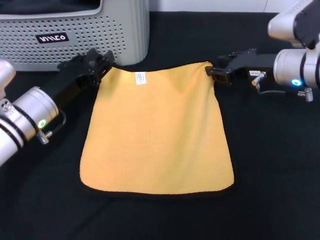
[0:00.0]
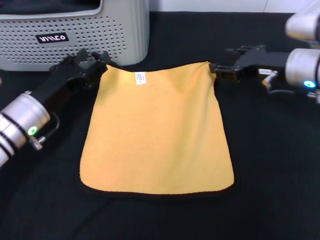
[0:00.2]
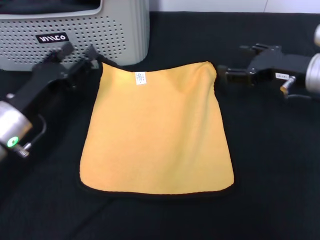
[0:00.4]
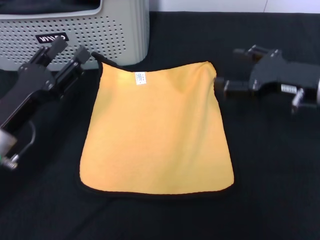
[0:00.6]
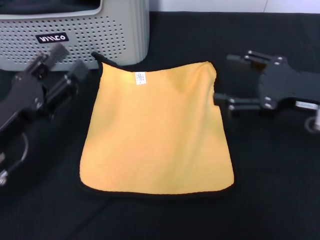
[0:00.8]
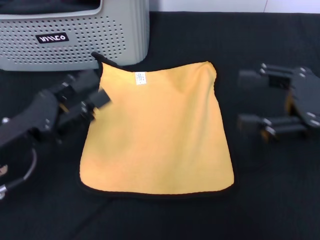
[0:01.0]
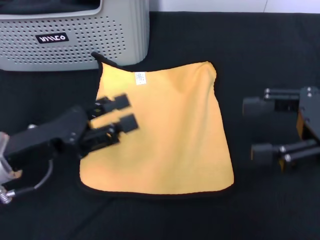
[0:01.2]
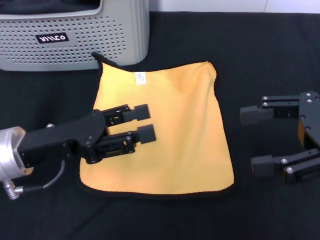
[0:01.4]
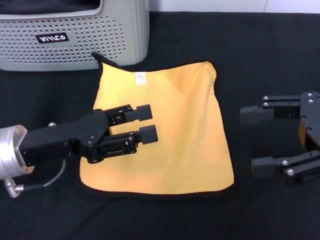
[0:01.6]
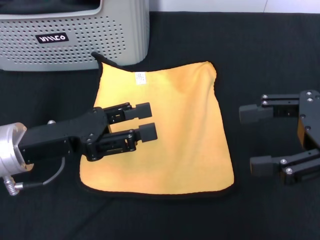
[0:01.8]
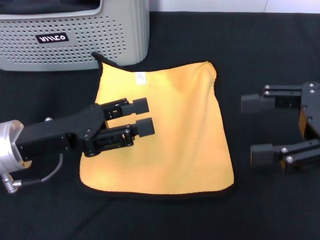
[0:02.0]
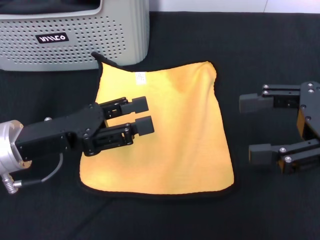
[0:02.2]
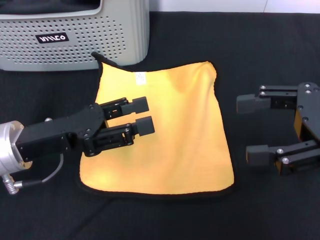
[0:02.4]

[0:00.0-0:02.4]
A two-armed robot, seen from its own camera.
Task of the whole recording: pick up the towel from the storage box and lay it flat on the black tablecloth.
0:00.0 to 0:01.2: The right gripper shifts about 20 cm backward, upward and to the right, and opens up, while the left gripper travels backward and upward by roughly 10 cm, and opens up.
0:01.2 to 0:02.4: The grippers make only small movements.

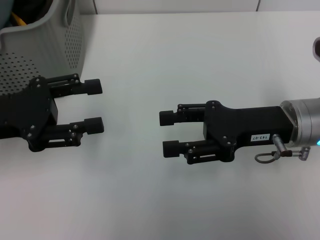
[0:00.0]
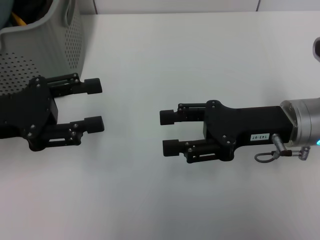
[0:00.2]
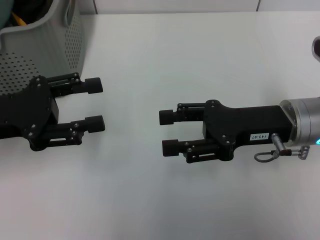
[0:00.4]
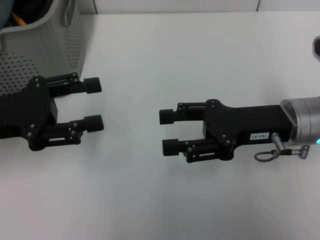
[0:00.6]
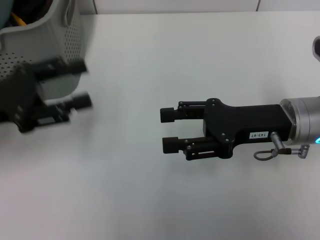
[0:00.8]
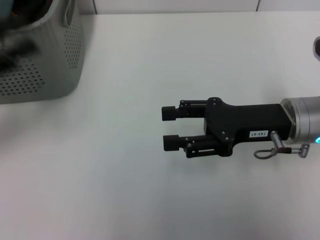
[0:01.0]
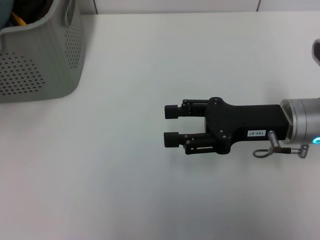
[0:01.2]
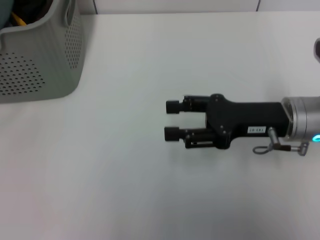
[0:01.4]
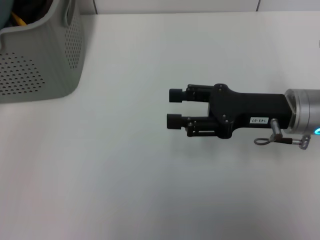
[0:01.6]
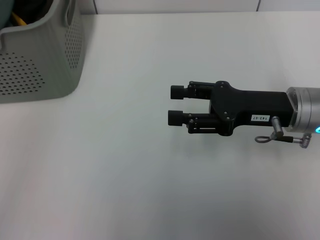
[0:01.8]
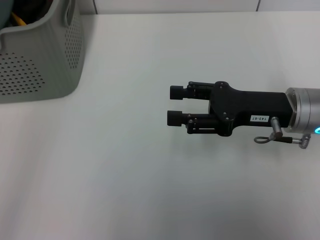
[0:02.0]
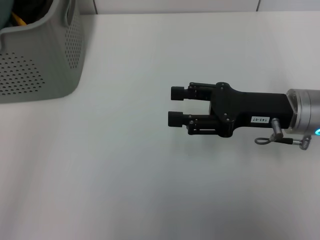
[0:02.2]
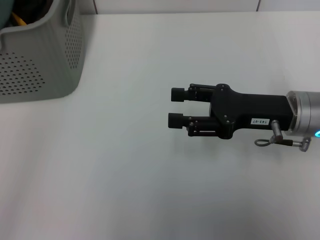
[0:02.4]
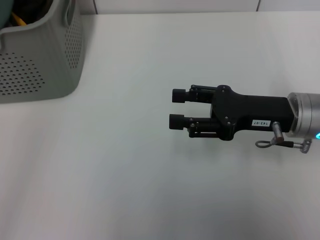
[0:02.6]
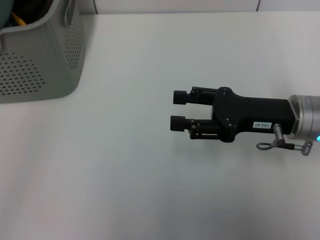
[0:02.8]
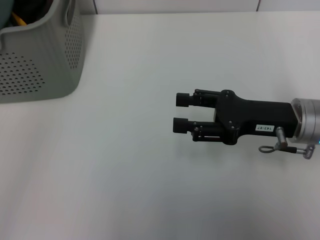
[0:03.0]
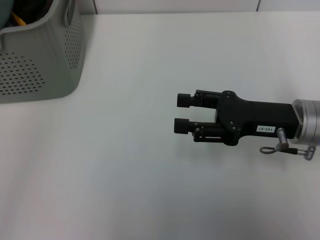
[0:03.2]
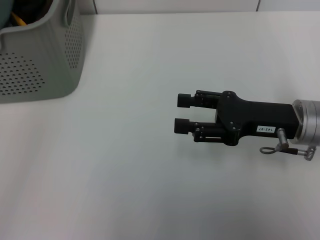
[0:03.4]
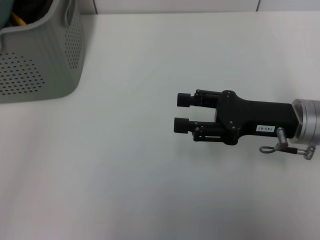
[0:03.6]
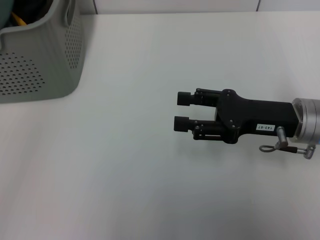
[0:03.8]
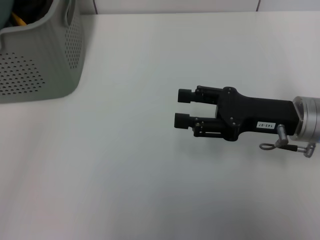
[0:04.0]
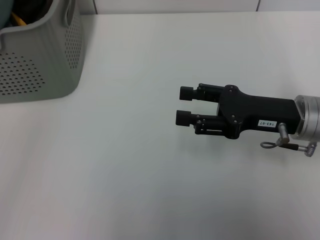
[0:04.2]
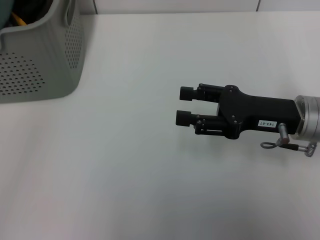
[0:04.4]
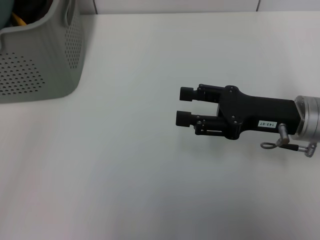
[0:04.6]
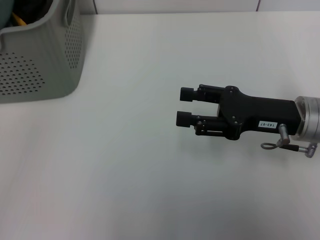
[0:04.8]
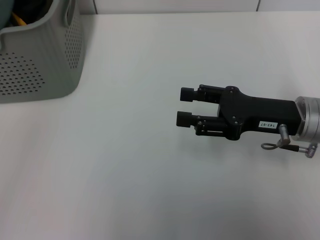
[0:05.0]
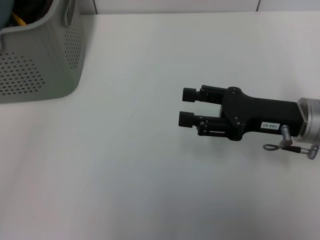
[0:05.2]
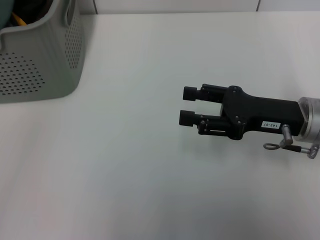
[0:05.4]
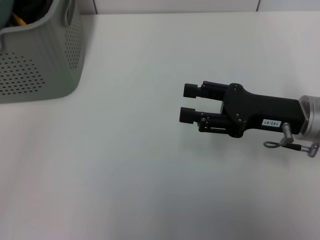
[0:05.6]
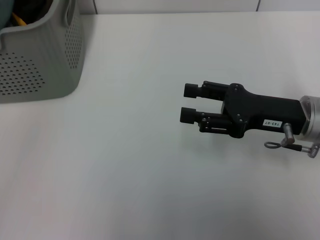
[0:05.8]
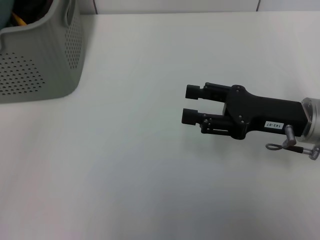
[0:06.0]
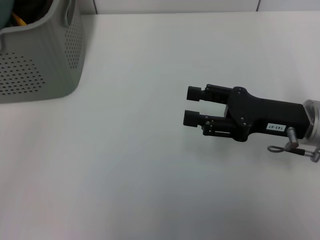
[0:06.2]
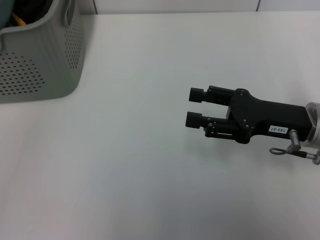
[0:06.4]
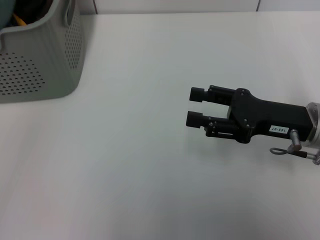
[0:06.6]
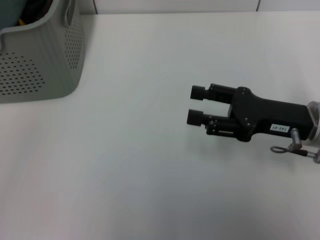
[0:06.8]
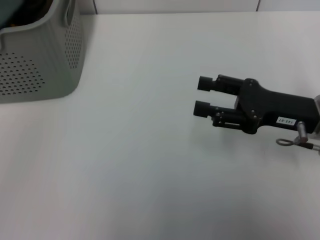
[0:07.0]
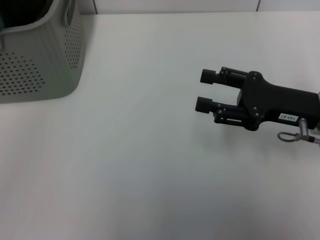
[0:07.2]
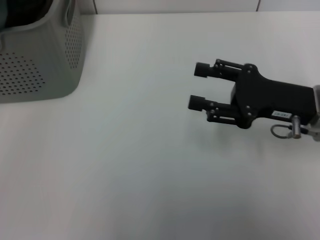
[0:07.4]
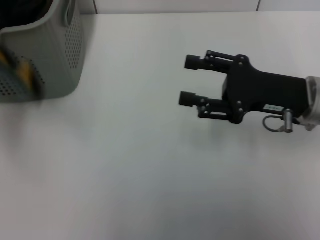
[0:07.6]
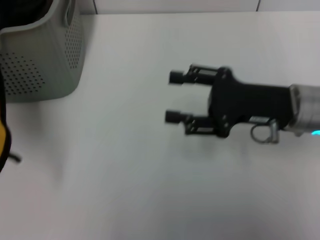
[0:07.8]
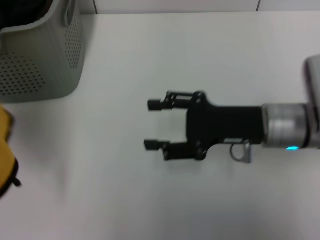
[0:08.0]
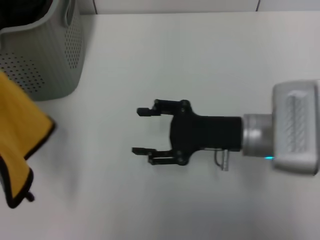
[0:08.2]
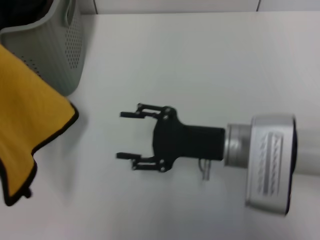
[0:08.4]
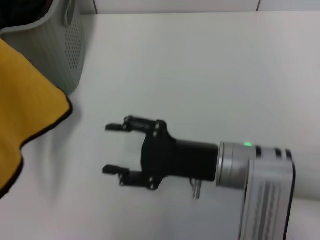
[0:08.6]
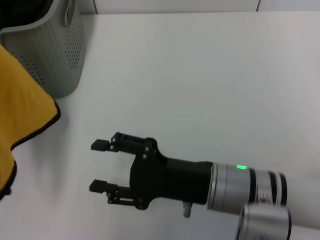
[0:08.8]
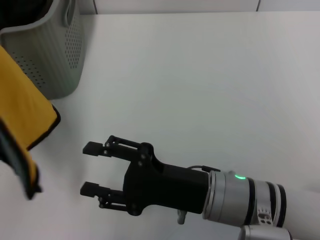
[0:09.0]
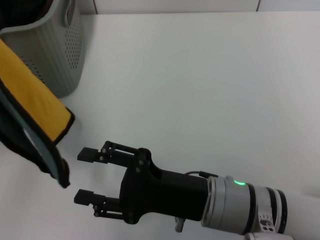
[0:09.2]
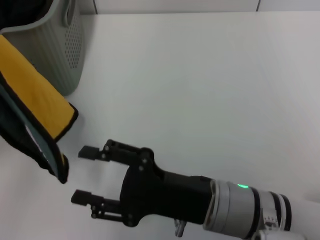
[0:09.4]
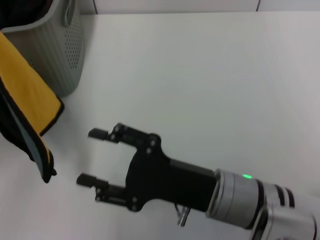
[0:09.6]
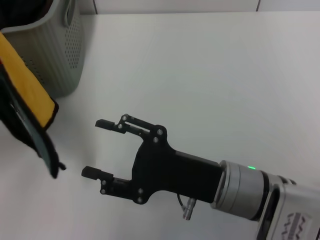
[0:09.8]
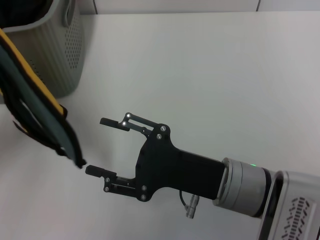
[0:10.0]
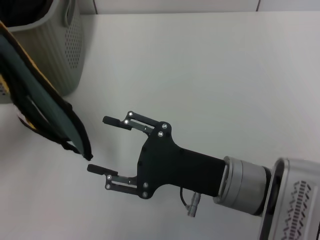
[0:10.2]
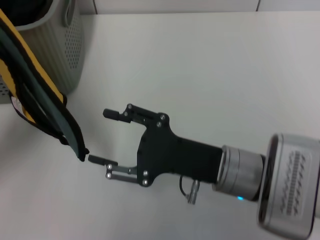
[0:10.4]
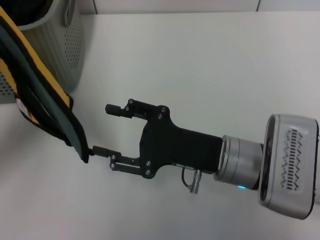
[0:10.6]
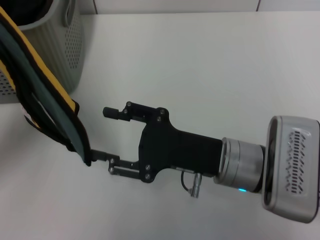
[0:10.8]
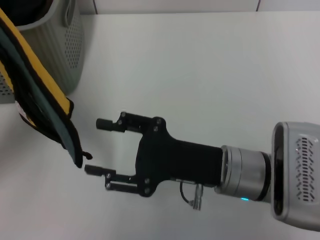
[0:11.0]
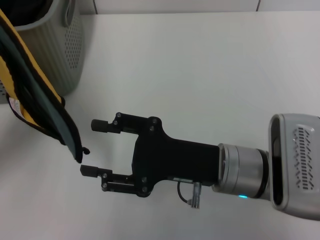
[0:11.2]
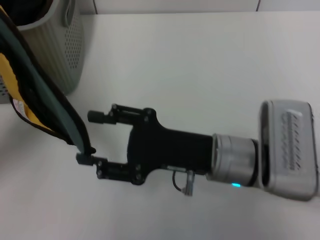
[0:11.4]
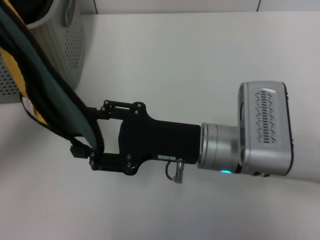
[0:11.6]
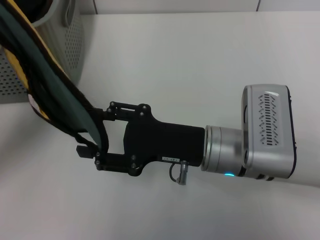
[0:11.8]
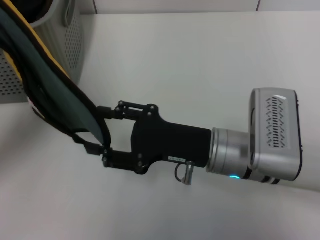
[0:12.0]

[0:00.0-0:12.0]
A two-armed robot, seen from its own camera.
Task of the whole recording: pick up the towel from the storage box and lay it flat on the table.
Step, 0:00.0 to 0:06.4: Pick up a towel with the left gripper.
0:00.0 to 0:01.6: The left gripper moves to the left and backward, roughly 15 cm.
0:03.0 to 0:04.4: There are only small adjustments of the grippers.
0:04.4 to 0:06.0: The left gripper closes up.
0:06.0 to 0:07.6: The left gripper goes about 5 cm upward, and closes its fingers.
0:07.6 to 0:09.0: The right gripper shifts approximately 15 cm to the left, backward and downward, while the left gripper is displaced to the right by approximately 5 cm.
0:09.0 to 0:10.4: The left gripper goes some 10 cm downward and to the right.

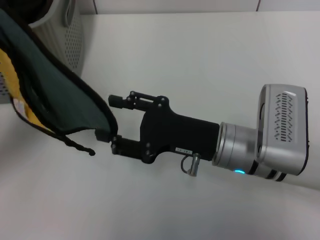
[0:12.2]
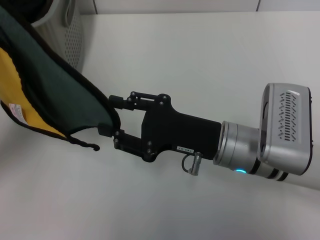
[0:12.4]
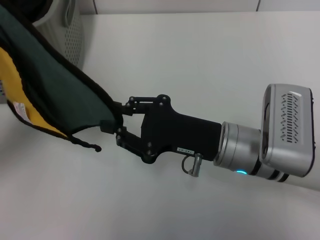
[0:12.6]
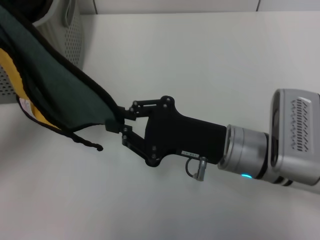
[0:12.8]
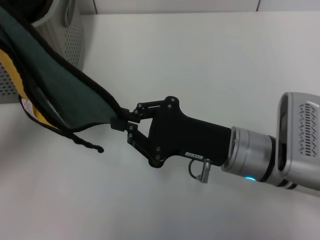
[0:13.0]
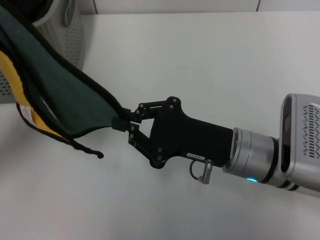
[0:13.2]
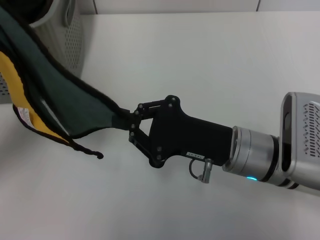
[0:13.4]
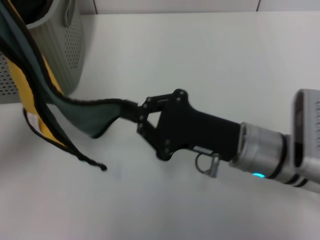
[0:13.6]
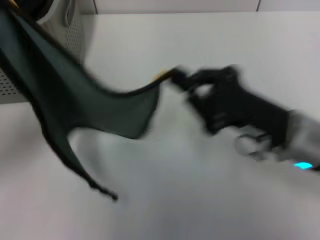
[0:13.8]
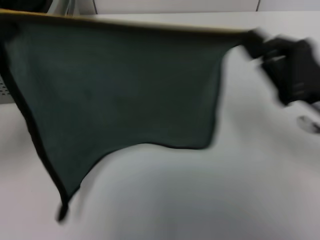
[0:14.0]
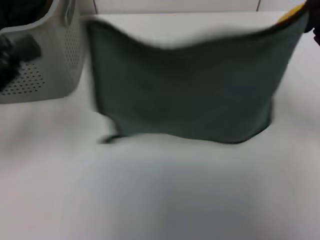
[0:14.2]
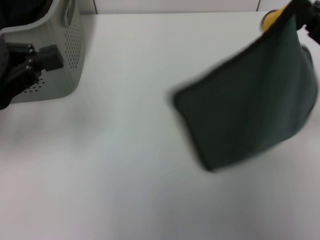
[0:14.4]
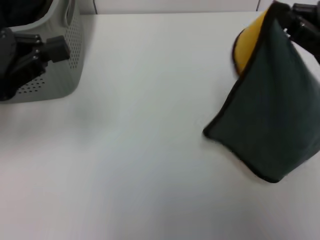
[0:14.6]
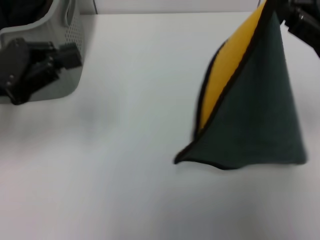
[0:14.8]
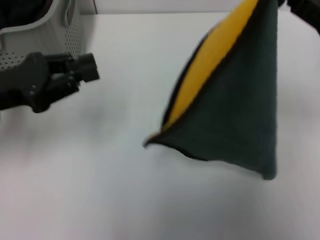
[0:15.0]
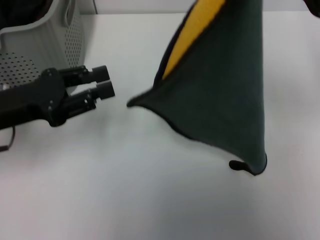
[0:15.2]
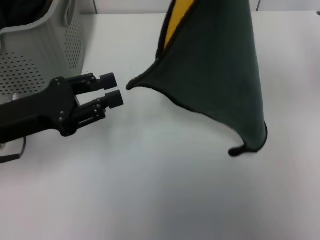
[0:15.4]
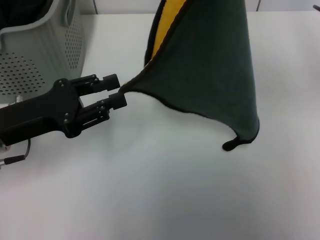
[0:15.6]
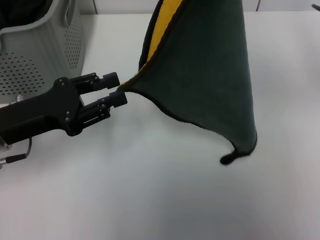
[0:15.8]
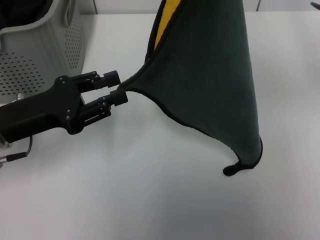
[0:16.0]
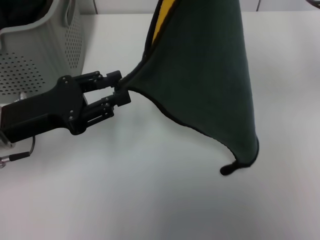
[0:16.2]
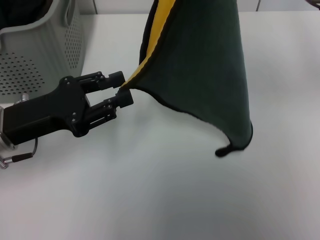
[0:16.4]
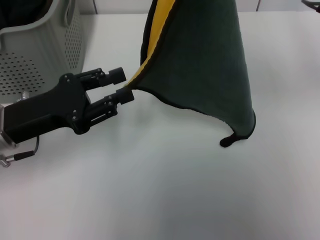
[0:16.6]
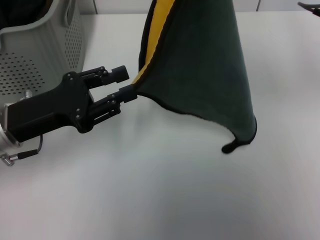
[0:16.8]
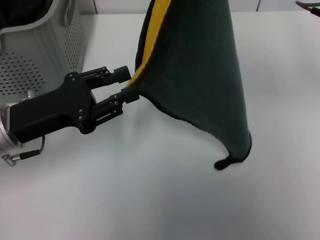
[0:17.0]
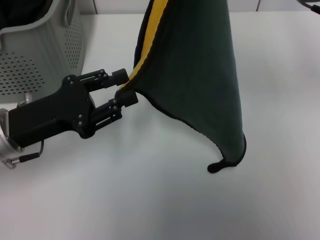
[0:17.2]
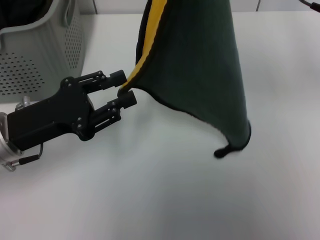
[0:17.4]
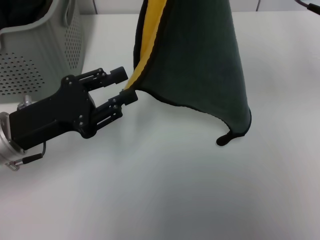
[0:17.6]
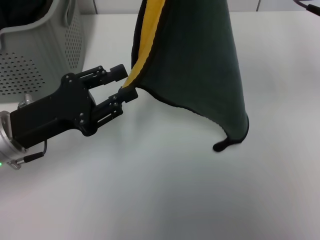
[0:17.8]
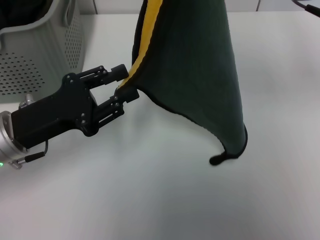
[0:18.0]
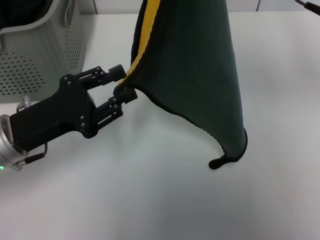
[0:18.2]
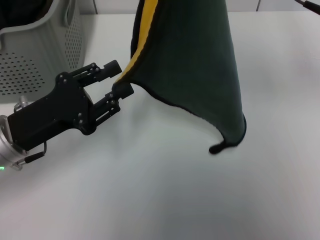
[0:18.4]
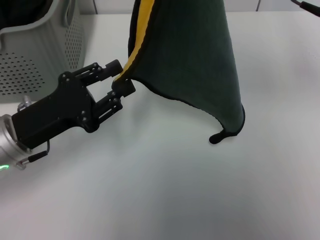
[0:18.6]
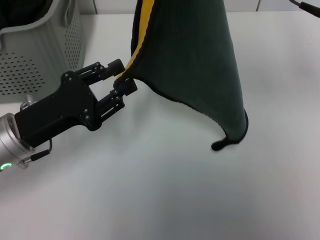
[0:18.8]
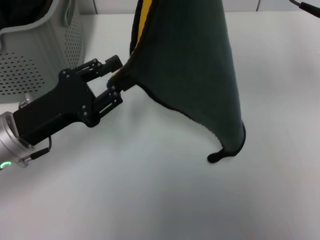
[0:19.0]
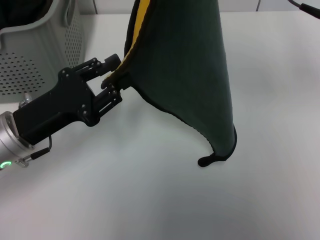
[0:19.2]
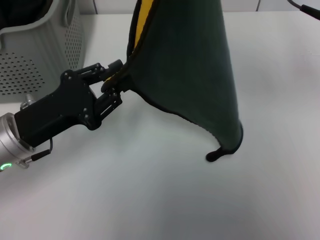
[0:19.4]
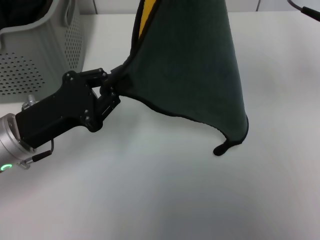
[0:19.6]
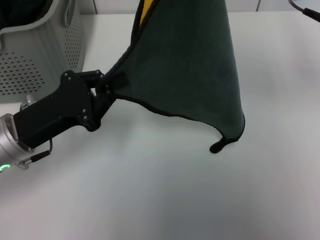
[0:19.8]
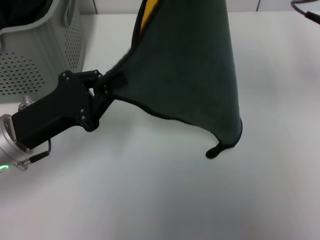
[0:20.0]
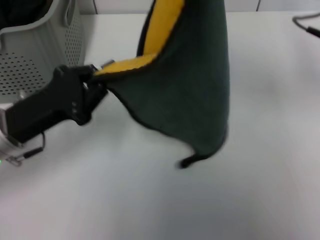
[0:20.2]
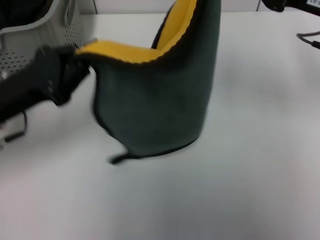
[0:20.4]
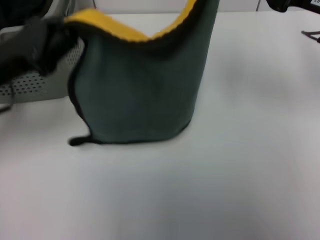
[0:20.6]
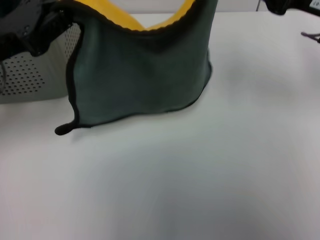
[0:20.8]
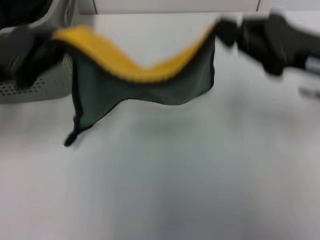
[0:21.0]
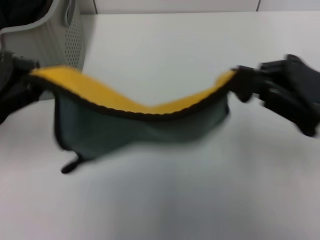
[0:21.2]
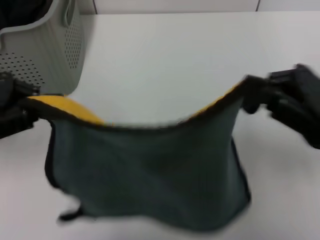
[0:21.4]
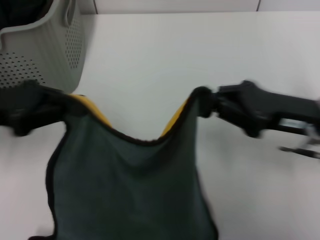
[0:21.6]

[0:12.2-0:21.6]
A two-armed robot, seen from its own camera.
Task of the whole recording: pick up the towel from the storage box and lay it flat on the table.
0:12.2 to 0:13.8: The right gripper moves to the right, approximately 5 cm, and closes up.
0:13.8 to 0:15.4: The left gripper changes place by approximately 5 cm, and opens up, while the right gripper goes roughly 20 cm upward, forward and to the right.
0:15.4 to 0:18.4: The grippers move only a little.
0:18.4 to 0:20.0: The left gripper closes its fingers.
0:20.0 to 0:21.6: The right gripper heads downward and backward, covering approximately 15 cm; the left gripper shifts some 10 cm upward and to the left.
